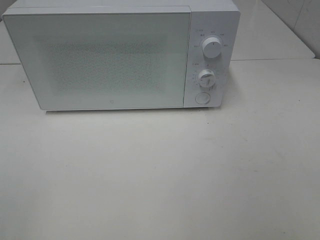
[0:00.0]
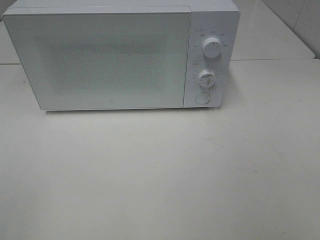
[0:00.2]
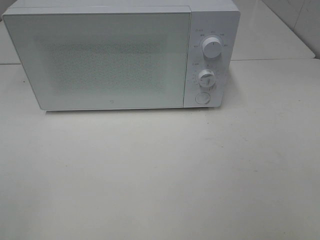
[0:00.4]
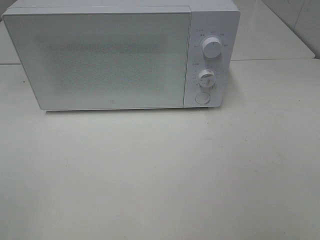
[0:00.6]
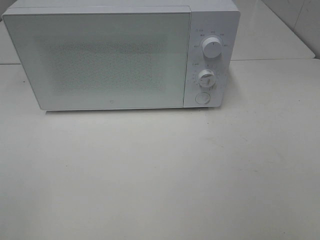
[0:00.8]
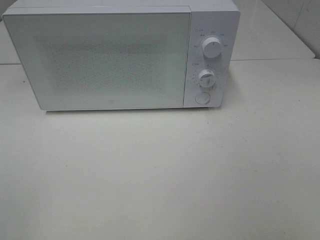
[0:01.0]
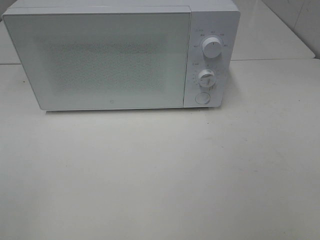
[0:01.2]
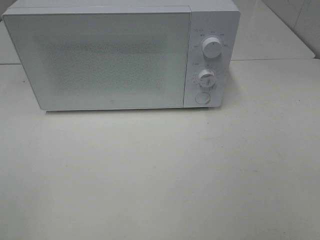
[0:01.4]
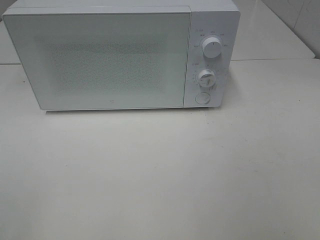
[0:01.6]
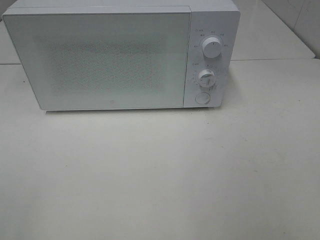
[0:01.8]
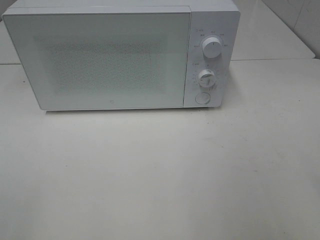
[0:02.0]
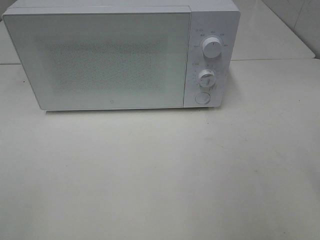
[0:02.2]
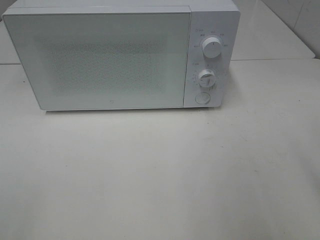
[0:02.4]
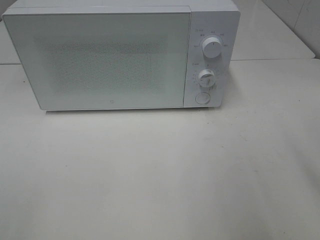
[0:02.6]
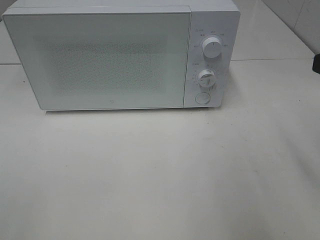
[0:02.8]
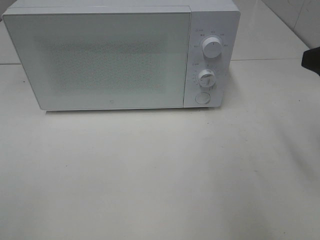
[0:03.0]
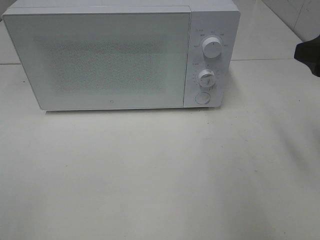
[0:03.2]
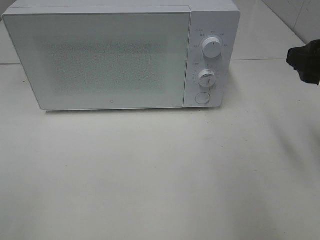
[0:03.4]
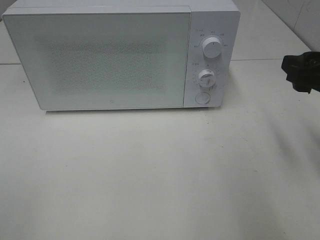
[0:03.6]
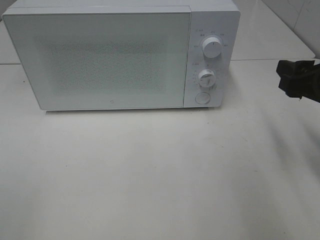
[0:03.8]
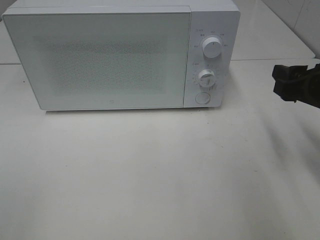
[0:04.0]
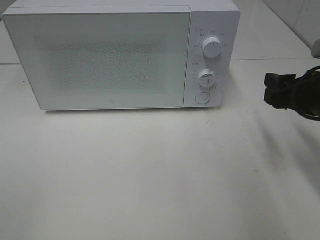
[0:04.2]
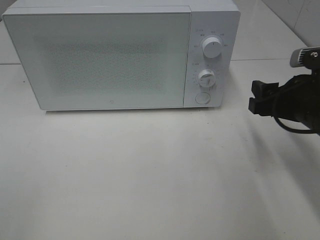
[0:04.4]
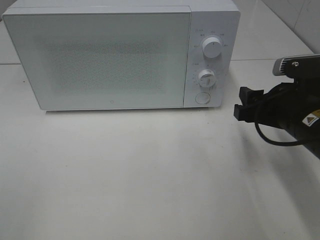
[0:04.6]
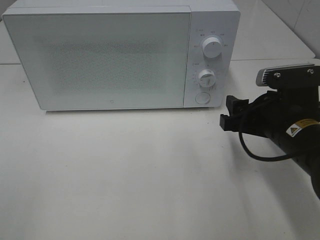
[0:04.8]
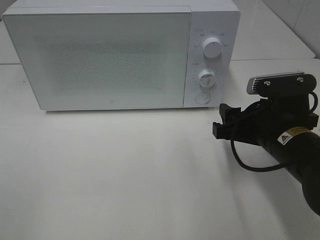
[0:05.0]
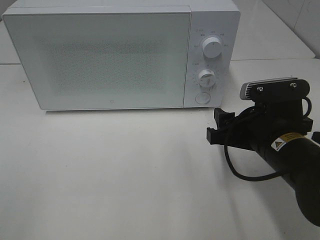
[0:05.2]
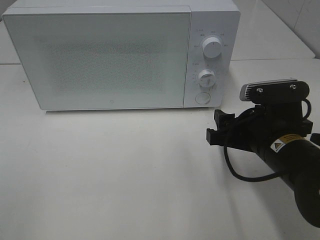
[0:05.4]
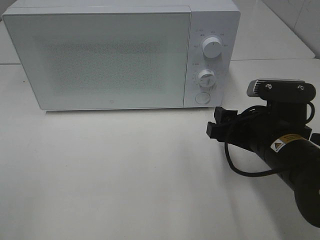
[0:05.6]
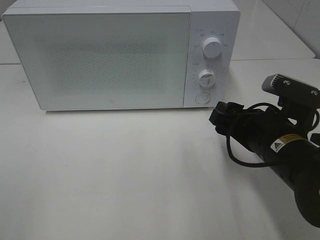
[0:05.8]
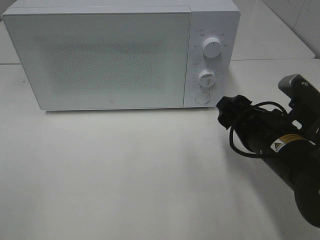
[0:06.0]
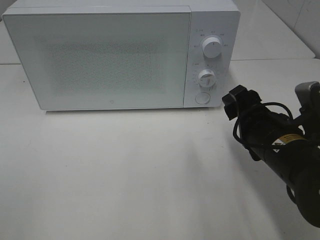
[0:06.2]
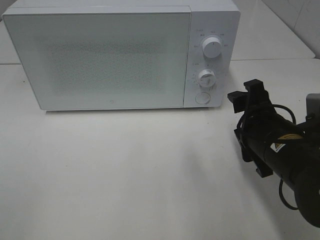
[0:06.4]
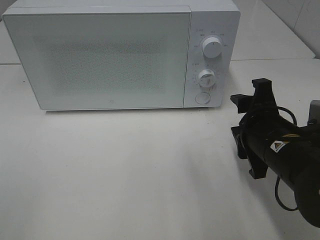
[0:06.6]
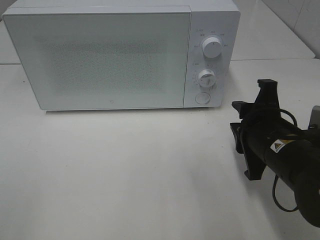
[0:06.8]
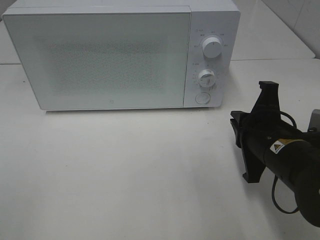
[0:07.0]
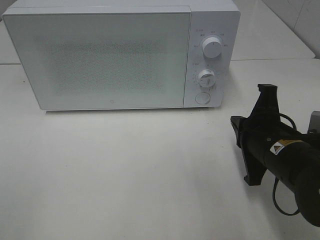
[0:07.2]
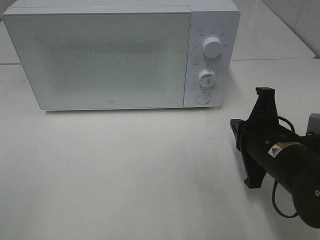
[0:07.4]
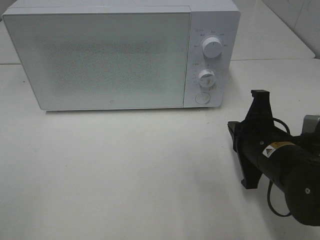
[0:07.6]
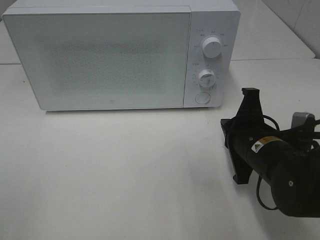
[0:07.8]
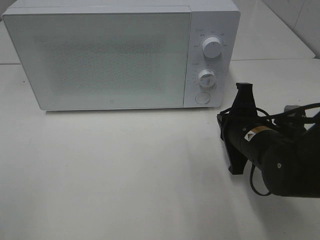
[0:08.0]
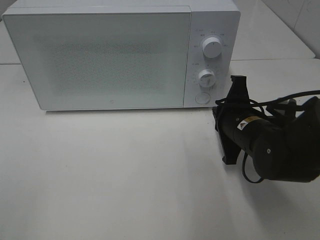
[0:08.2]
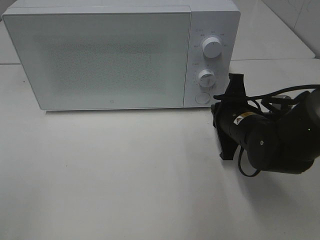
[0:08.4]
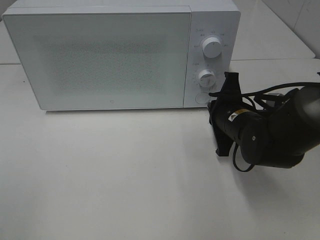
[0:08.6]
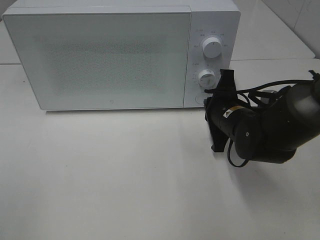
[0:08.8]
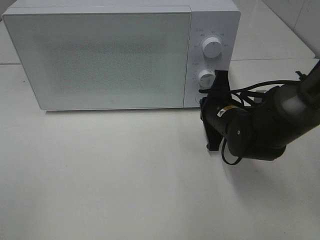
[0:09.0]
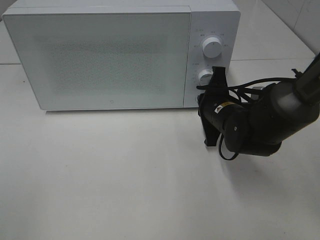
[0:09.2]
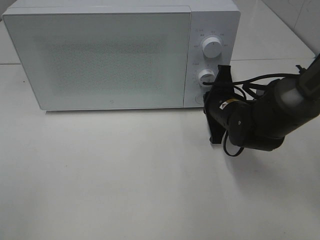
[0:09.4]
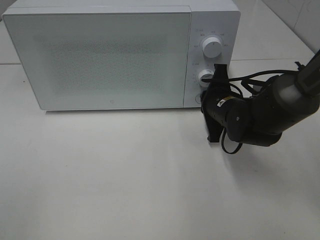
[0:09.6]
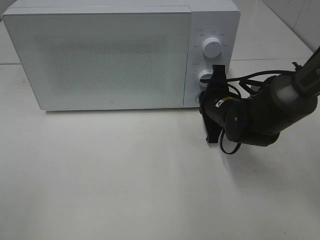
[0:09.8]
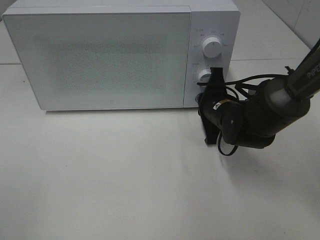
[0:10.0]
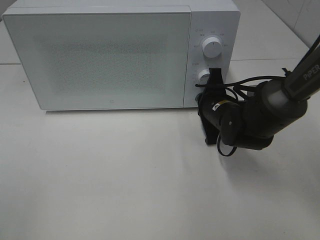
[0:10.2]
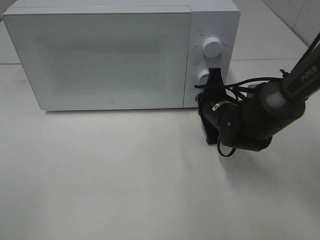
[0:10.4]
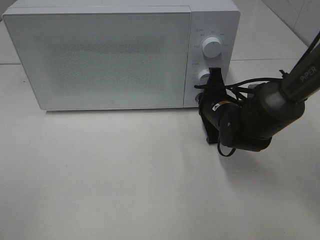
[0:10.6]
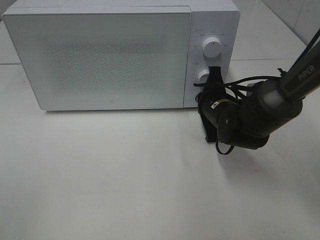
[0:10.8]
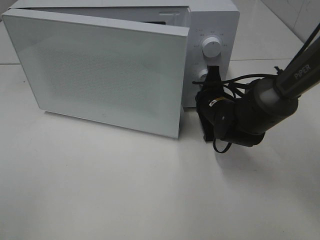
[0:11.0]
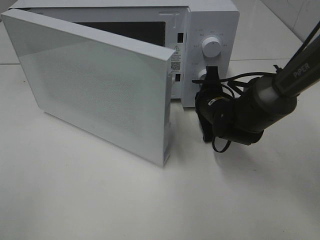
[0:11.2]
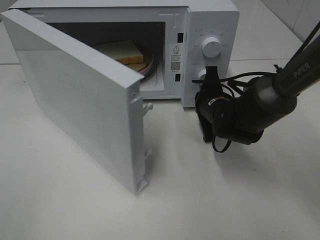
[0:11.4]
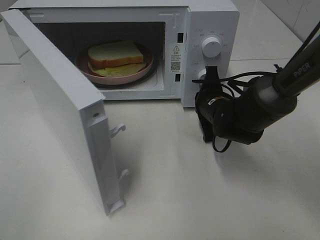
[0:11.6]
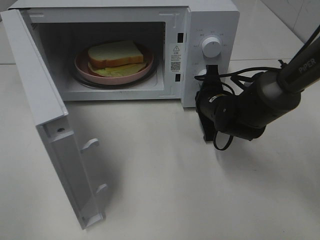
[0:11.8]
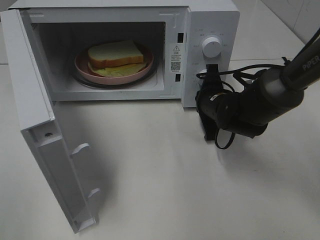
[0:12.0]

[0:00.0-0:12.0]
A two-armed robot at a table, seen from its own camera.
Task of the whole recording: Heat Sandwich.
0:03.0 to 0:04.4: The right gripper is displaced downward by roughly 10 cm.
0:04.4 to 0:06.0: The right gripper heads to the left, covering roughly 5 cm.
0:06.0 to 0:07.6: The right gripper closes its fingers.
0:07.6 to 0:09.0: The right gripper moves forward, roughly 10 cm.
0:09.0 to 0:10.4: The grippers move only a little.

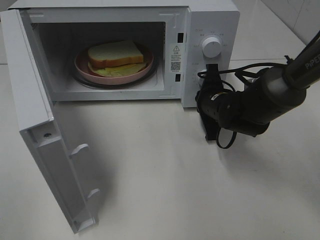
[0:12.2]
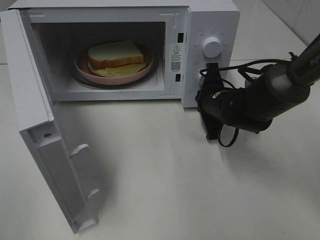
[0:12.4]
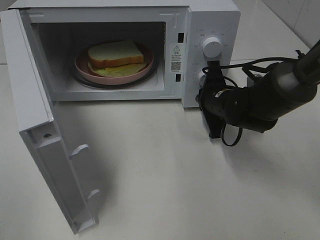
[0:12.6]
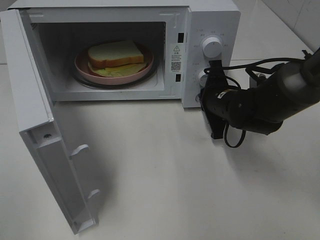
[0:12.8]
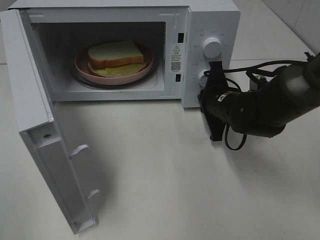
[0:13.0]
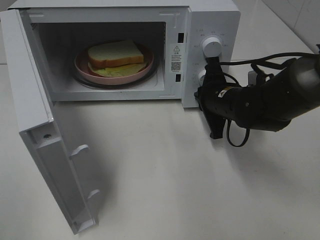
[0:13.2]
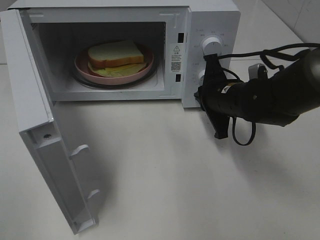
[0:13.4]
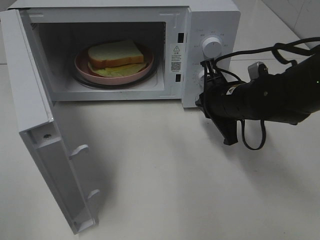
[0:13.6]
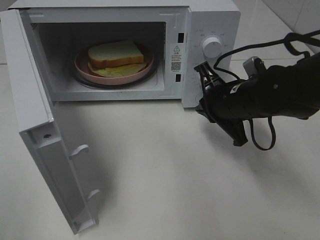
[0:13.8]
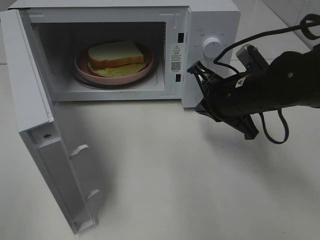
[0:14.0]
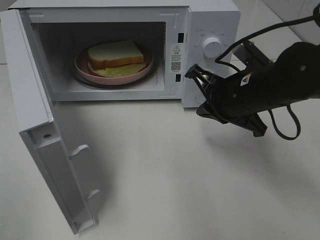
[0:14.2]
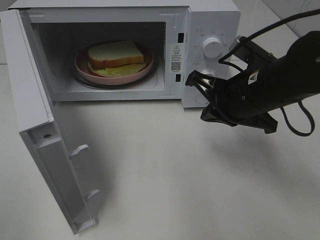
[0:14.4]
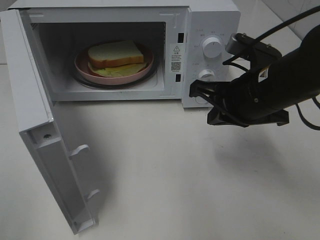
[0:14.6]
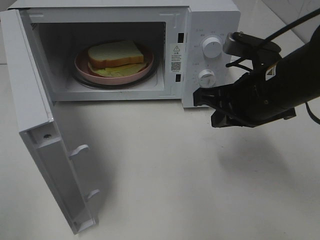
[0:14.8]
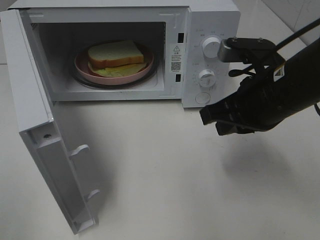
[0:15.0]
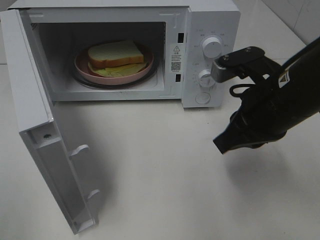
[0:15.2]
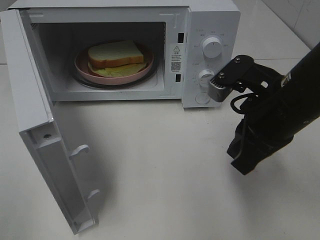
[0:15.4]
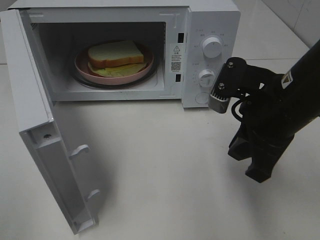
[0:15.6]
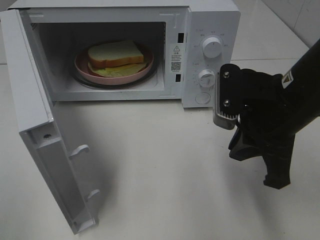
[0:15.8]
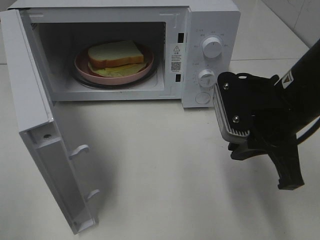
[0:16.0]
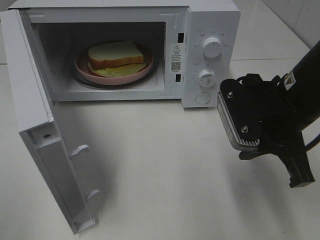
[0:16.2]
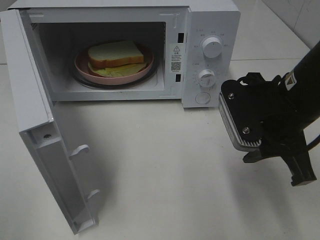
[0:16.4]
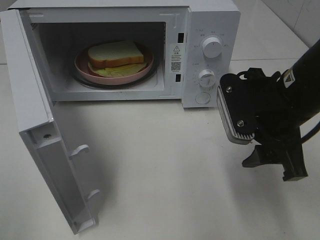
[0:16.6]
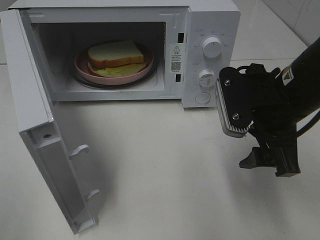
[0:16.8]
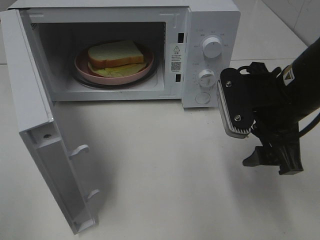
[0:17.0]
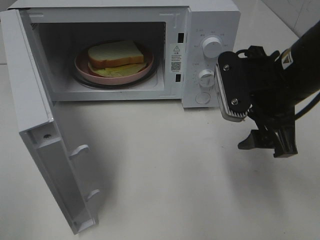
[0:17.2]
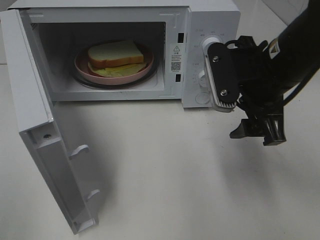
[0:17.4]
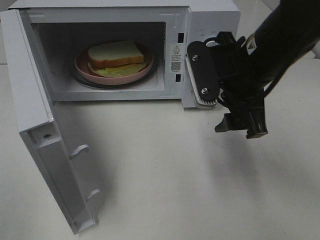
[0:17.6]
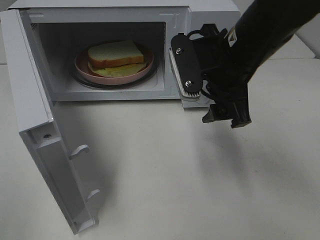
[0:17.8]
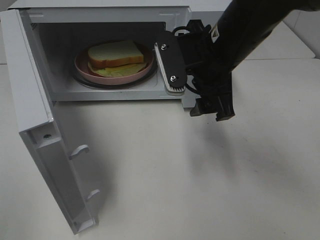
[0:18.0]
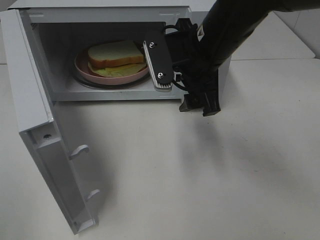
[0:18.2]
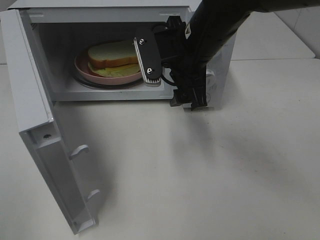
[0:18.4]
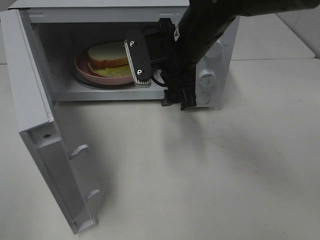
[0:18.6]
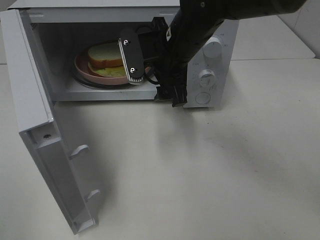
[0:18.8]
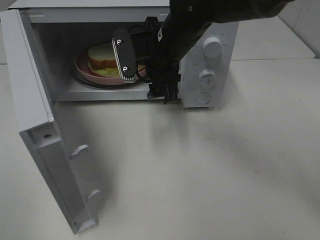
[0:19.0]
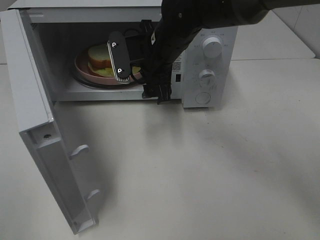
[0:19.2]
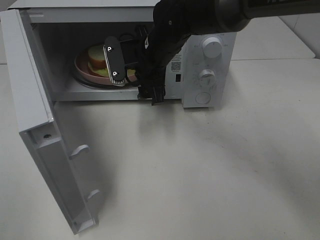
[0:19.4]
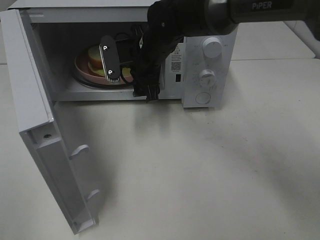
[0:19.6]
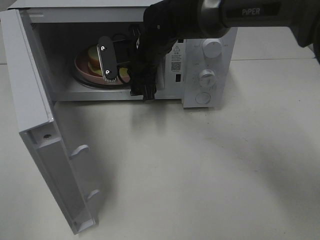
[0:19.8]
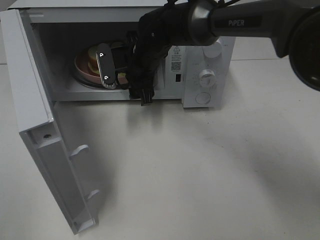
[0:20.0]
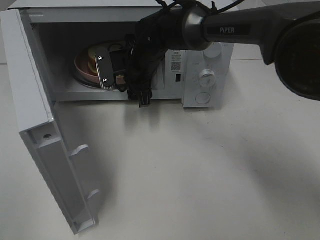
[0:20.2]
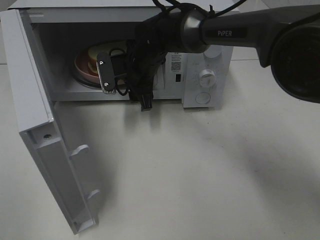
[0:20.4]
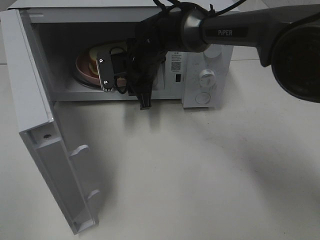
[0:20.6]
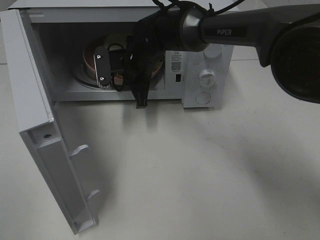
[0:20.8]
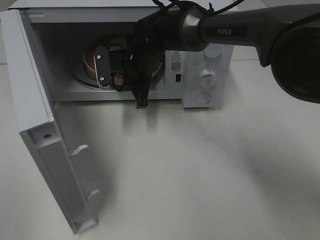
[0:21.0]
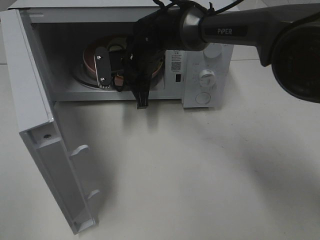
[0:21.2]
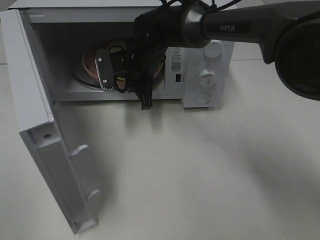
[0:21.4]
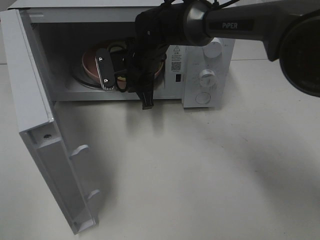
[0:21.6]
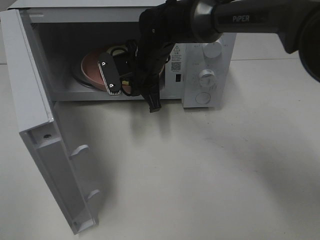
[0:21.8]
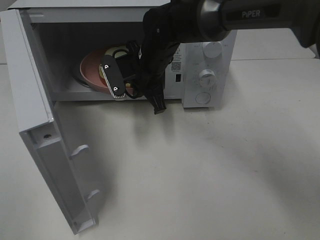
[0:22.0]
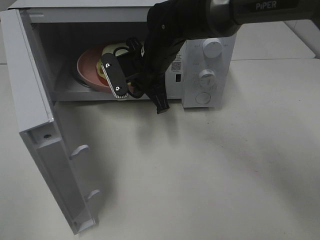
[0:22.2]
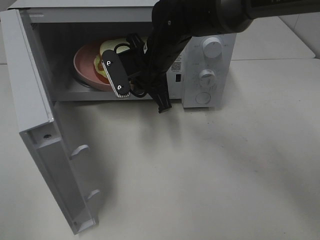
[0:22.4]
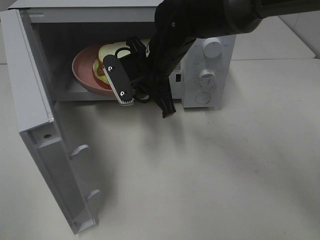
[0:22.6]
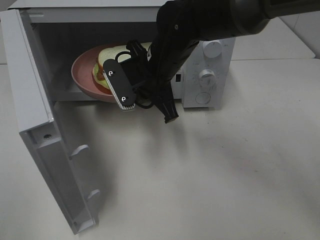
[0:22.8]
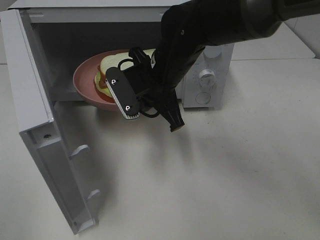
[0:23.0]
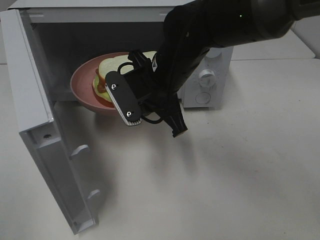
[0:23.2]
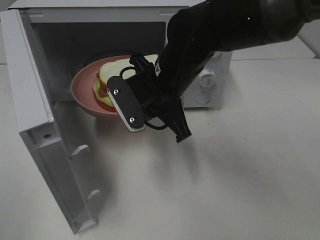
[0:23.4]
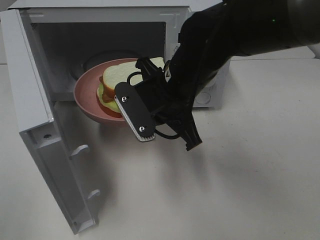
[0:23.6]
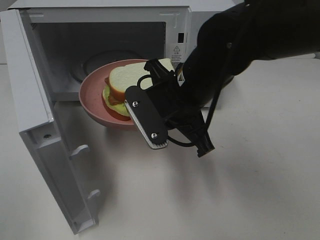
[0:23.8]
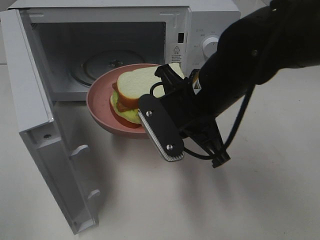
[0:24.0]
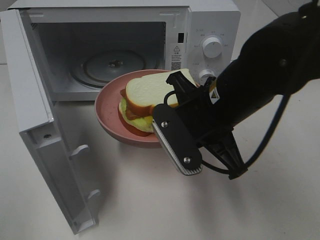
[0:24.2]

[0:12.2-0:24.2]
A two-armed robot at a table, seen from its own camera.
Task of the whole recording: Heat Sandwich.
Step, 0:13.4 to 0:21.4: Right hand: grab the plate with the sandwich.
0:12.2 to 0:13.8: The right gripper heads backward and upward, covering roughly 10 cm.
0:13.8 to 0:15.2: The right gripper goes approximately 10 cm backward and upward.
0:15.2 to 0:16.6: The right gripper opens.
0:16.6 to 0:18.2: The right gripper heads to the left and forward, covering roughly 10 cm.
0:18.2 to 0:19.8: The right gripper goes approximately 15 cm forward, to the left and downward.
0:19.8 to 0:21.2: The right gripper closes its fingers.
0:21.2 to 0:22.6: The right gripper shifts some 5 cm backward.
0:22.6 to 0:24.2: The right gripper goes roughly 15 cm backward and to the right.
